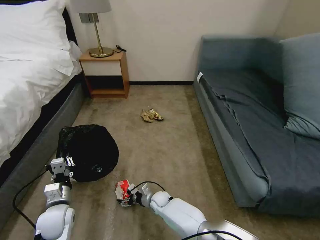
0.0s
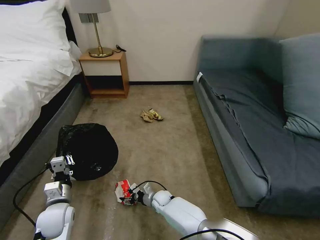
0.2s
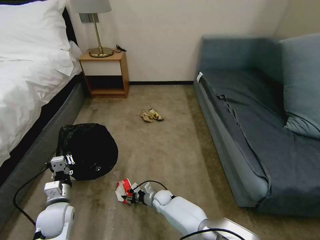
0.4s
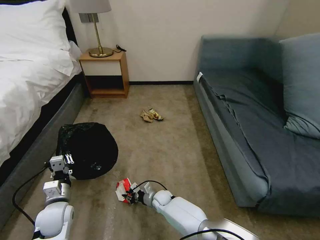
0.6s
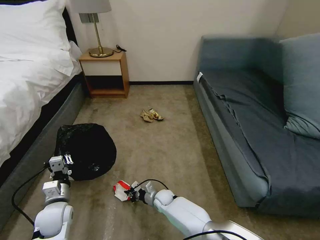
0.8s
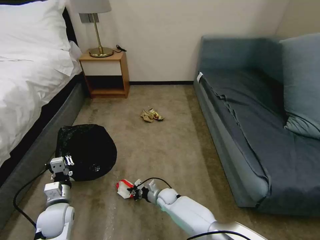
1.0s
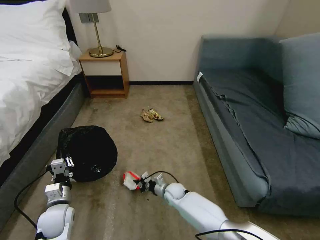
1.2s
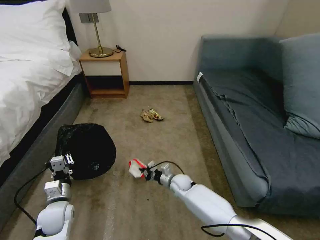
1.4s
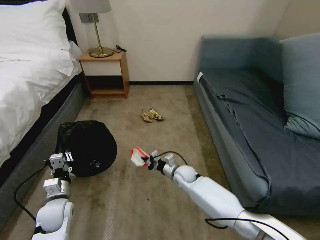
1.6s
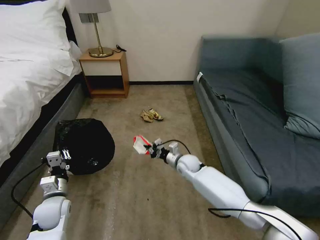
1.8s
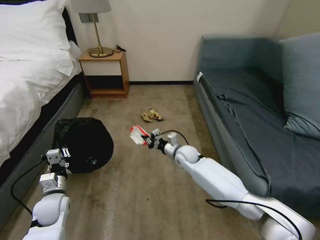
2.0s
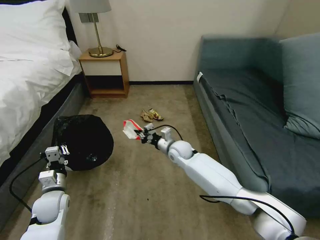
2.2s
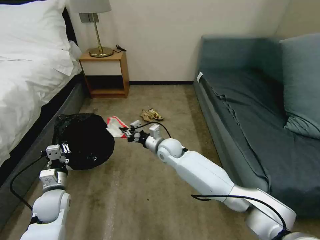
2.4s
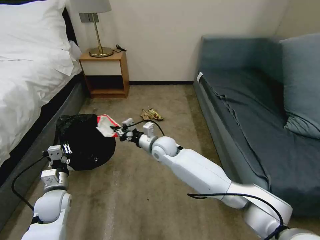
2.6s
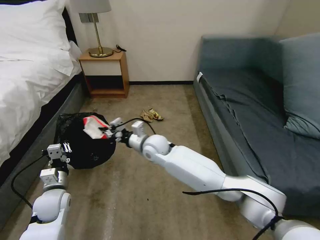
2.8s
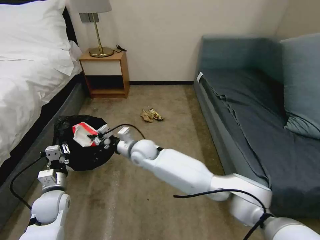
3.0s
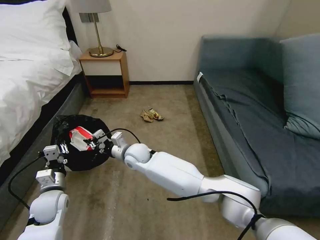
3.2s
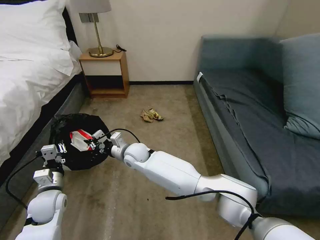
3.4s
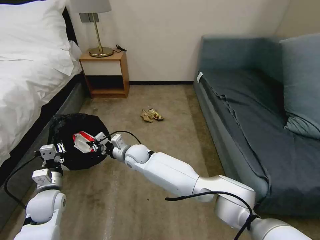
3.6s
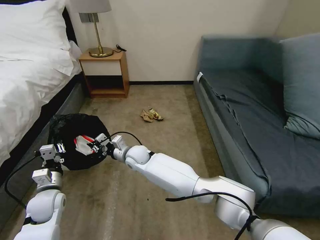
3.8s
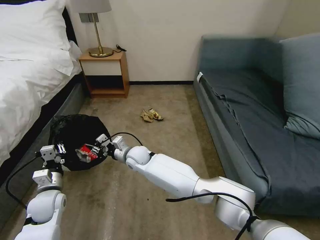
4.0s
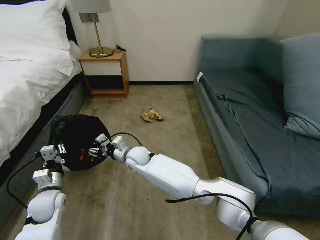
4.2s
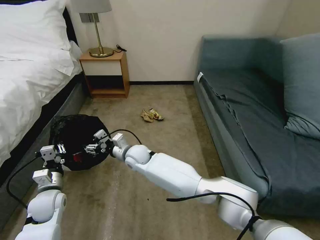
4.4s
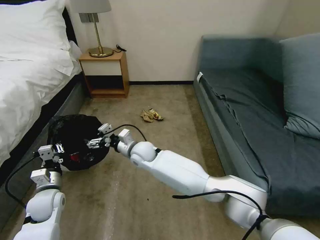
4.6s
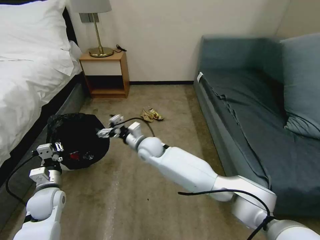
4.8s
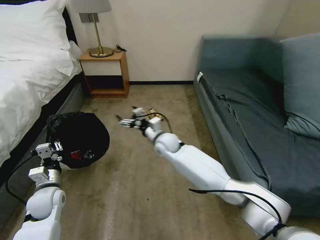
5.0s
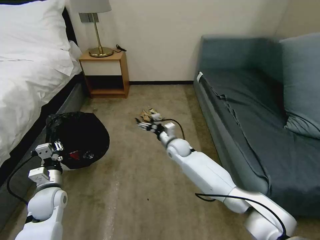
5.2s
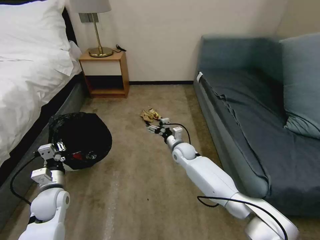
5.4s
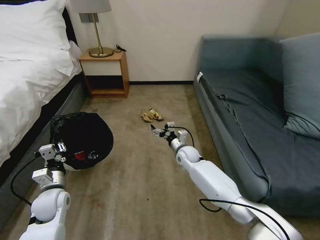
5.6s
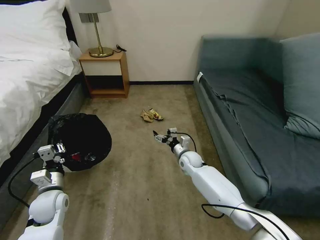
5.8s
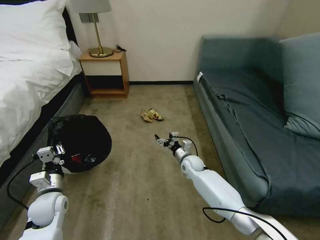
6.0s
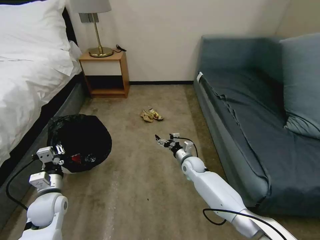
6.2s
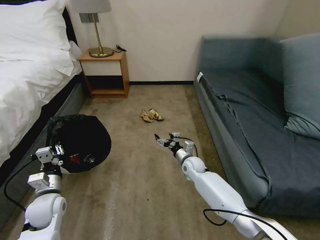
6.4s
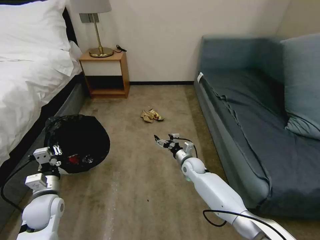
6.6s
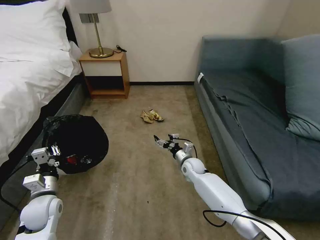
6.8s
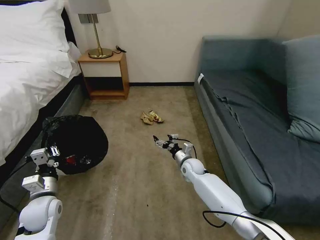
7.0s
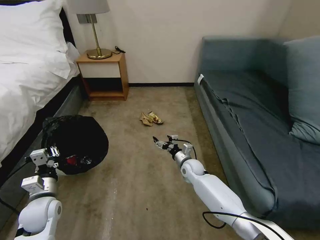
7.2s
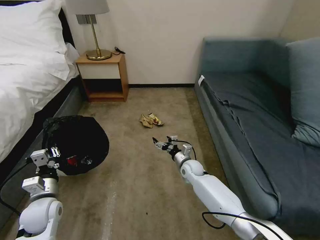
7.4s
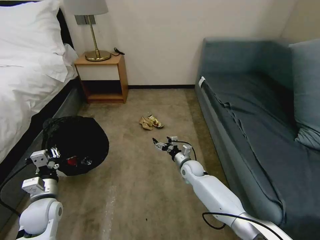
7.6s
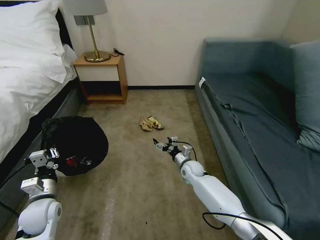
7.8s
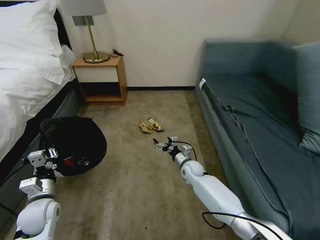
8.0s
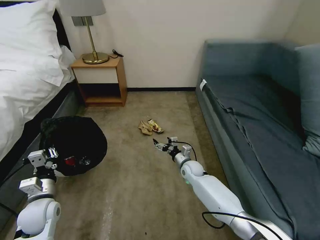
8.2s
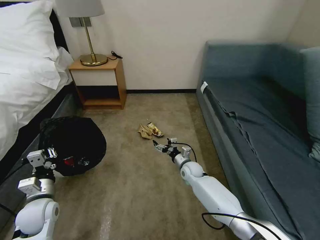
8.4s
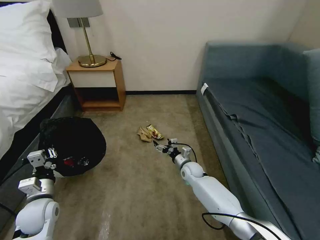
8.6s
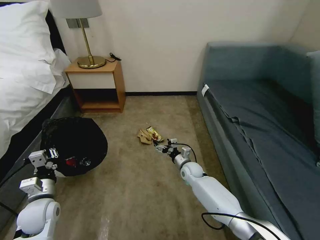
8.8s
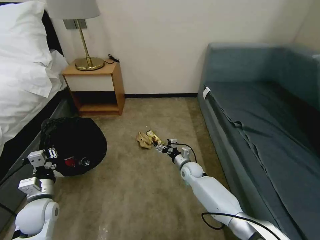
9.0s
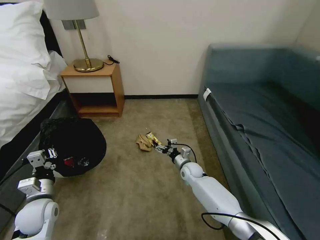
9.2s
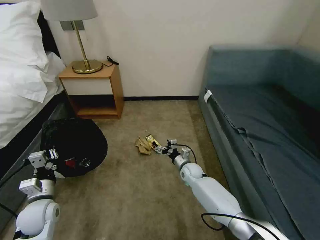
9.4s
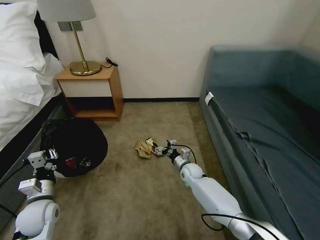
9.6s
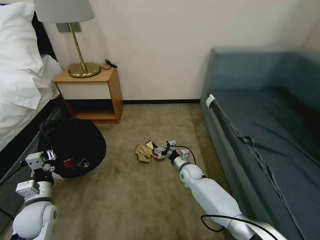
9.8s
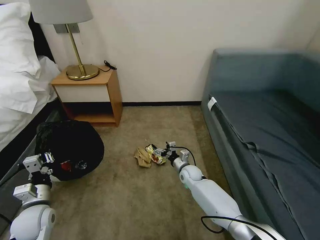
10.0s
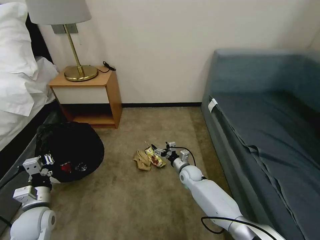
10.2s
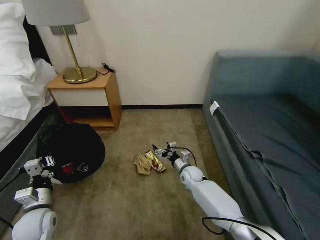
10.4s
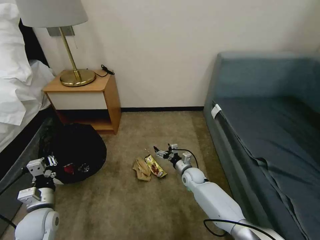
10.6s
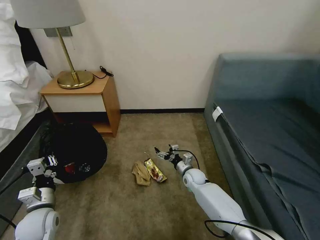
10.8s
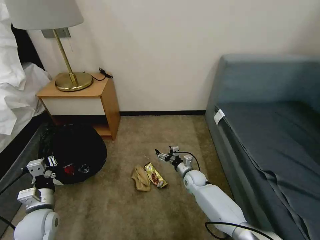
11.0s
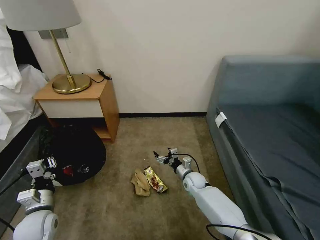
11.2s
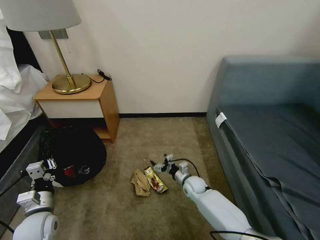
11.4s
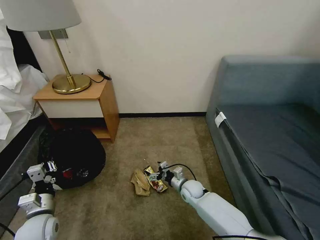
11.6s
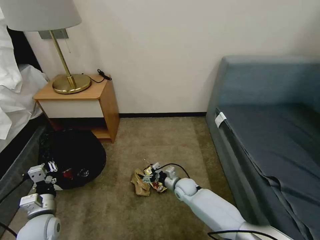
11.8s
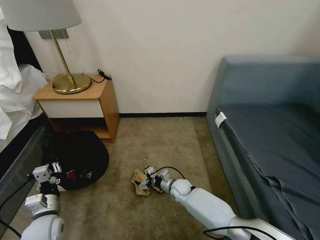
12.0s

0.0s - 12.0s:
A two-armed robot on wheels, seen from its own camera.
Task of the whole recording: Pick up the trash bin, then pick up the garbage on the floor and place it into the trash bin.
0.0s - 1.6s: The right gripper is displaced upward, to the right and forward by some 20 cm, and closes.
1.6s - 3.0s: The right gripper travels to the left and upward by roughly 25 cm.
3.0s - 4.4s: The right gripper opens up.
4.4s - 6.0s: The right gripper heads to the right and downward, covering approximately 25 cm.
10.4s - 12.0s: The right gripper changes place by about 10 cm.

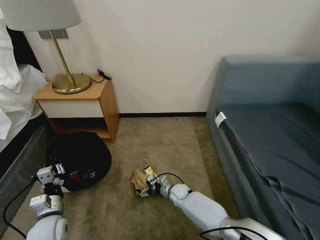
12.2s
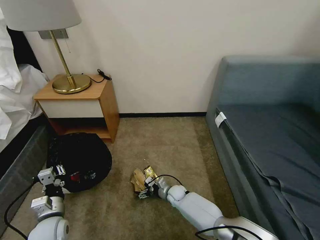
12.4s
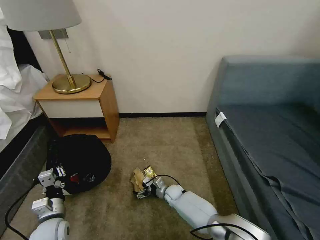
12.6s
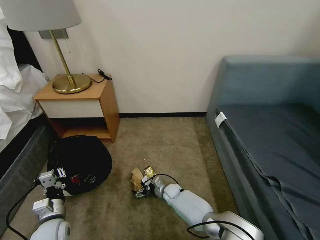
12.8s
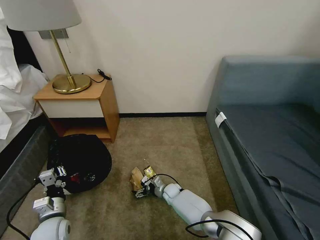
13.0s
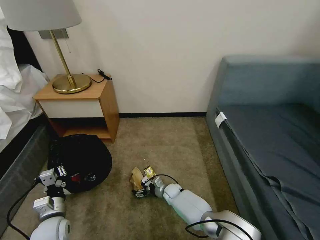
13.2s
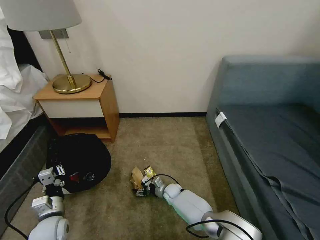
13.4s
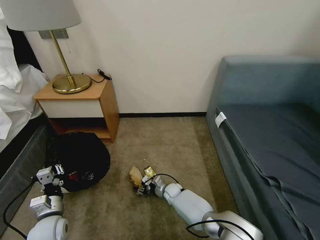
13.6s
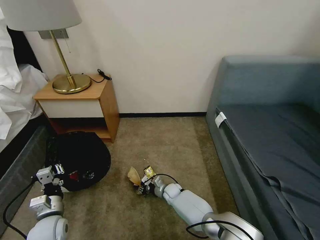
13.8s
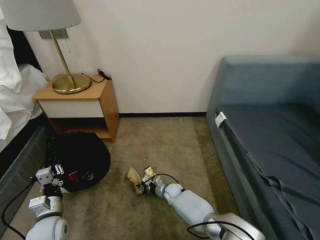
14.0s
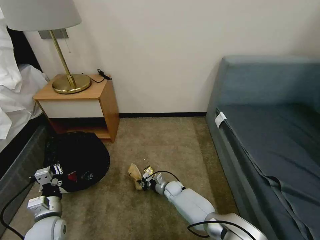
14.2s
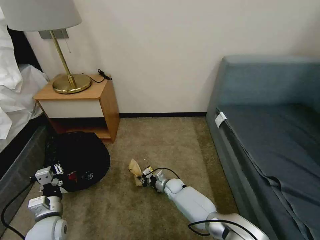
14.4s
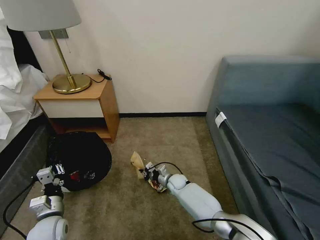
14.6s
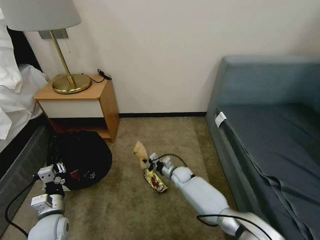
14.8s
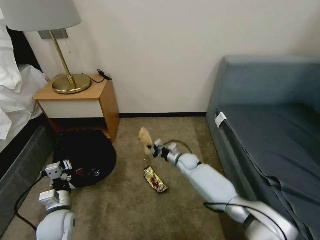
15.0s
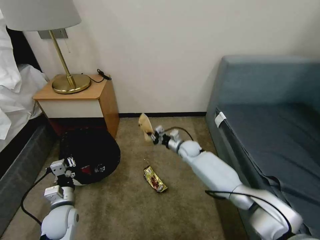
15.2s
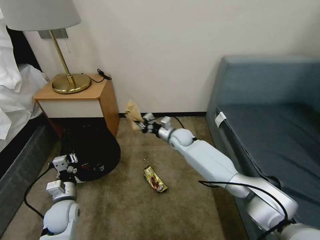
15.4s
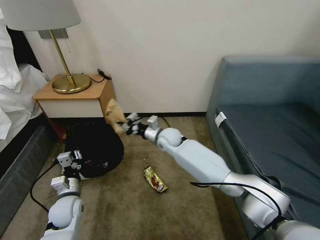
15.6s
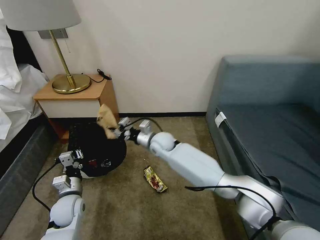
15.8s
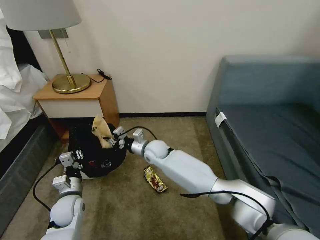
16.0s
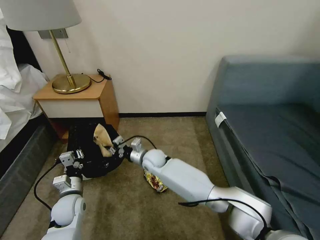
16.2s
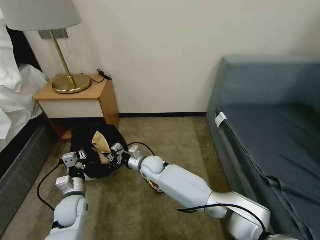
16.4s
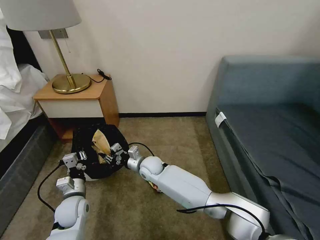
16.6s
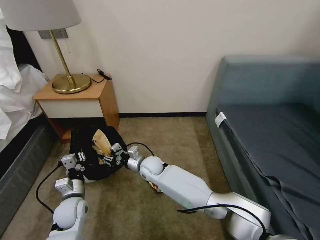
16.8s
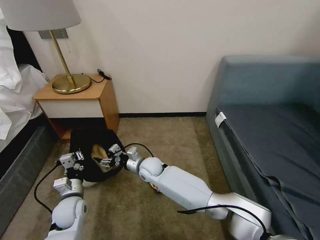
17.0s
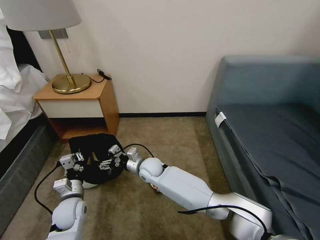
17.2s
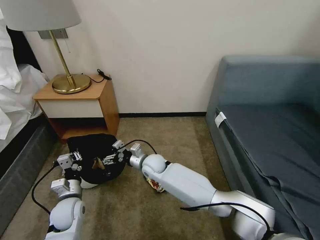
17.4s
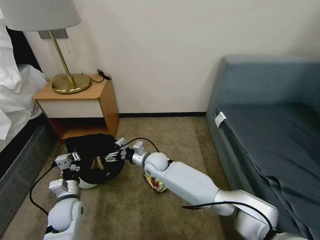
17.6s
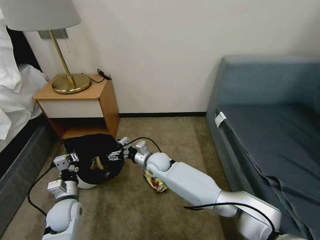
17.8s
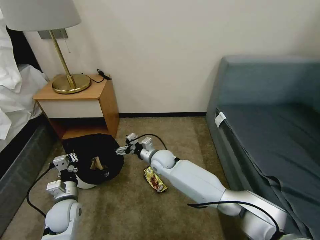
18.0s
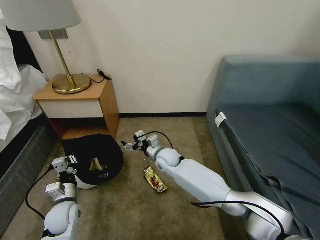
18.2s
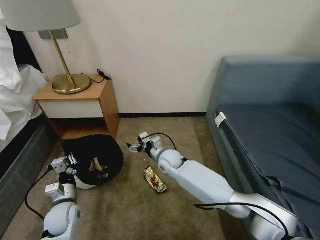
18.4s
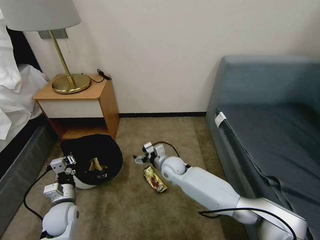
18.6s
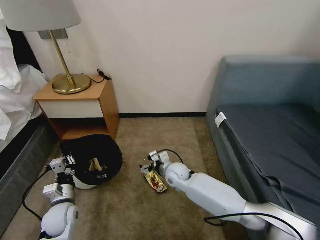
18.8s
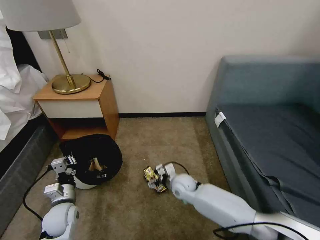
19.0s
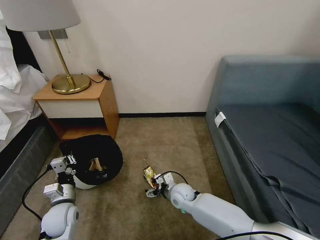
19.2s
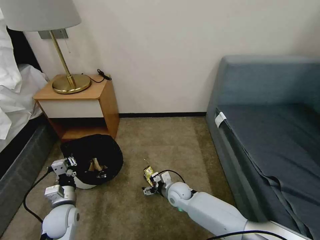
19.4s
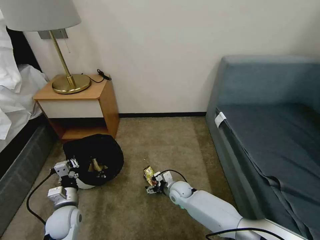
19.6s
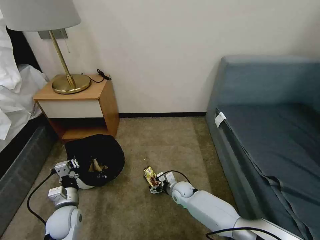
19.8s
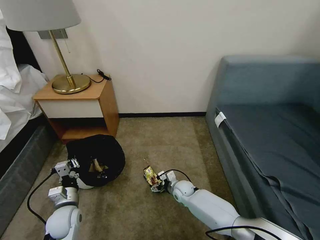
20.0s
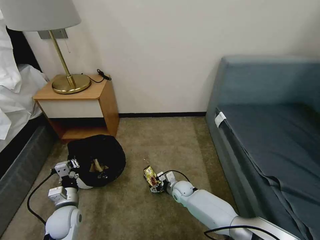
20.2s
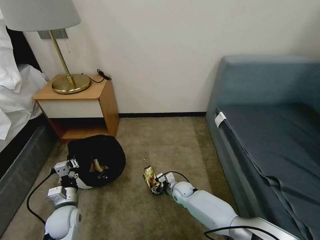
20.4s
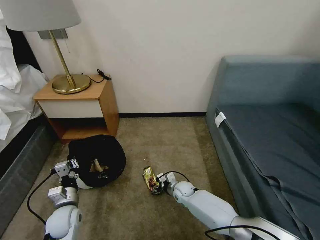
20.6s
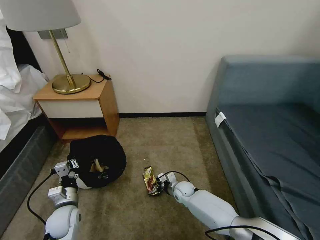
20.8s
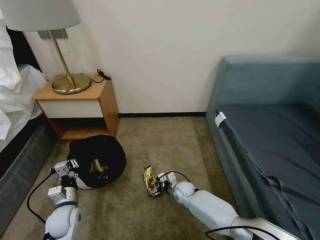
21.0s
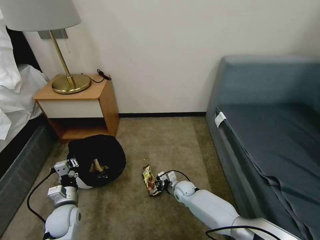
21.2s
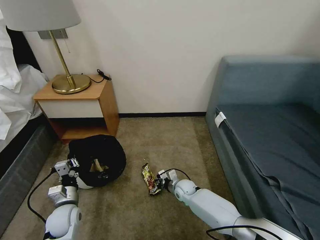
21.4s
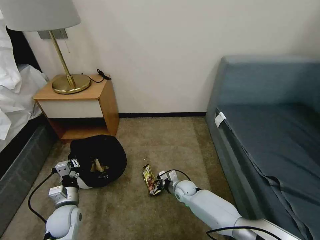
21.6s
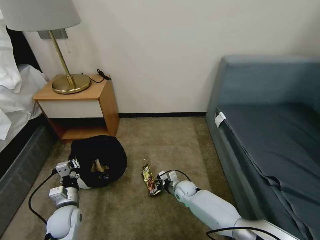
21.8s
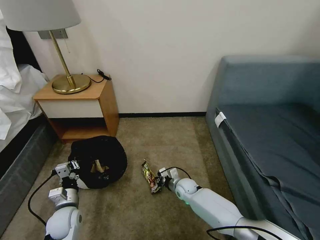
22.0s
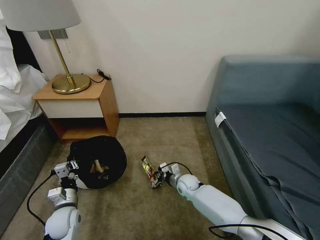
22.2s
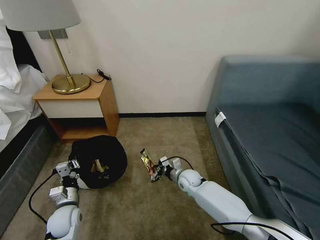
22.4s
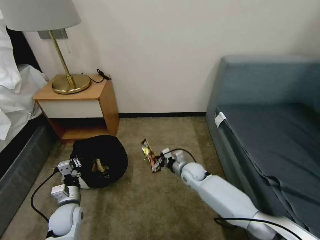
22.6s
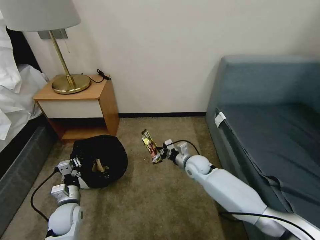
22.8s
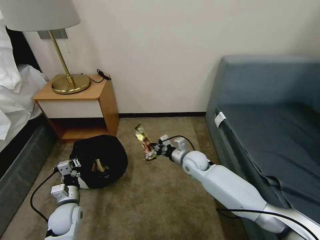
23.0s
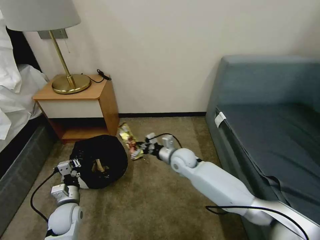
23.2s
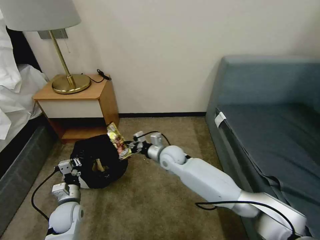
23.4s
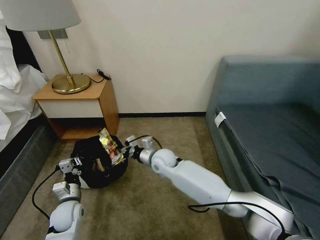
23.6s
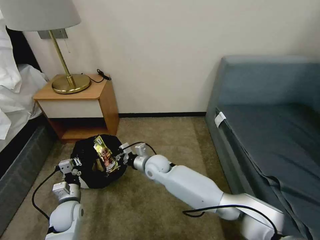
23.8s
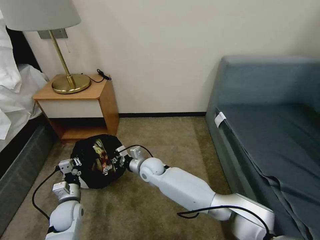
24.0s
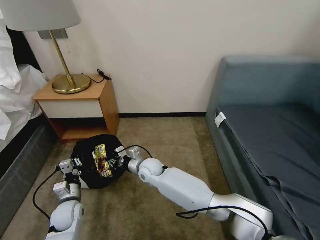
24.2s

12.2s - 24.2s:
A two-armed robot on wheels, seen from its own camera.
Task of the whole recording: Pick up the trash bin, then pick up the garbage on the floor and place it into the trash bin.
12.2s - 13.8s: The right gripper closes up.
13.8s - 15.2s: The right gripper travels upward and forward by about 25 cm.
15.2s - 16.6s: The right gripper moves to the left and backward, approximately 20 cm.
16.6s - 18.2s: The right gripper moves to the right, approximately 5 cm, and opens up.
18.2s - 19.8s: The right gripper travels downward, to the right and backward by about 20 cm.
19.8s - 21.2s: The right gripper closes up.
21.2s - 22.6s: The right gripper is displaced upward by about 10 cm.
22.6s - 24.2s: The right gripper travels to the left by roughly 20 cm.
